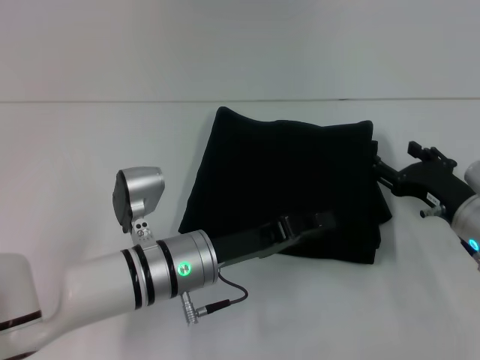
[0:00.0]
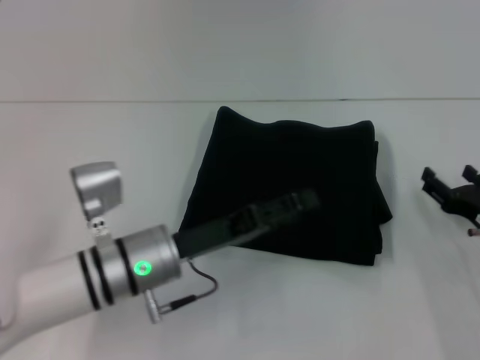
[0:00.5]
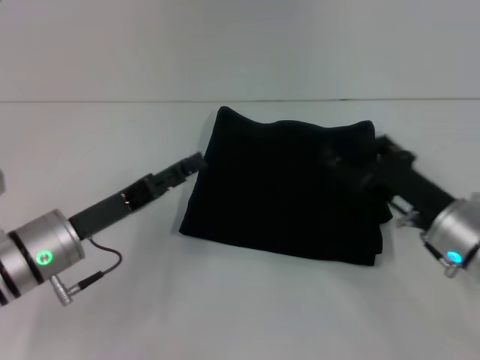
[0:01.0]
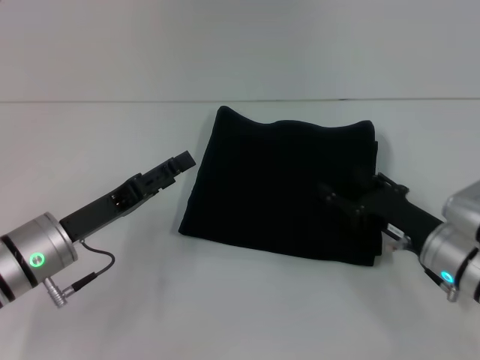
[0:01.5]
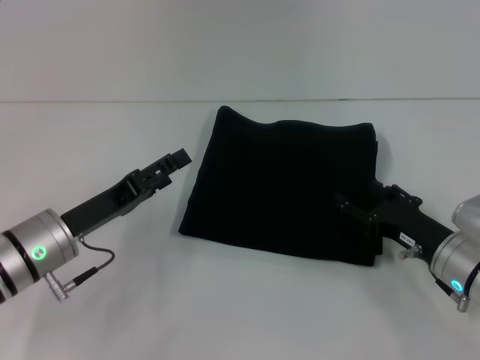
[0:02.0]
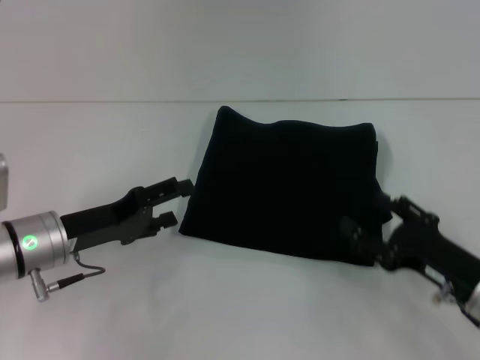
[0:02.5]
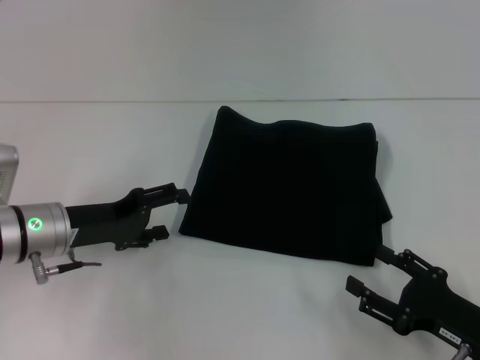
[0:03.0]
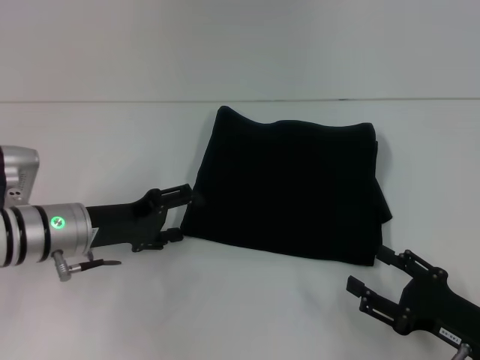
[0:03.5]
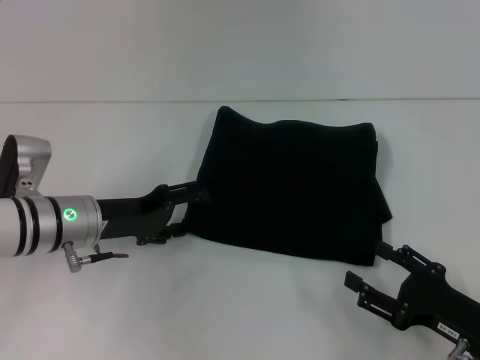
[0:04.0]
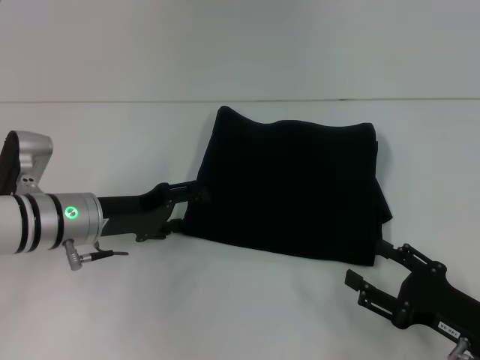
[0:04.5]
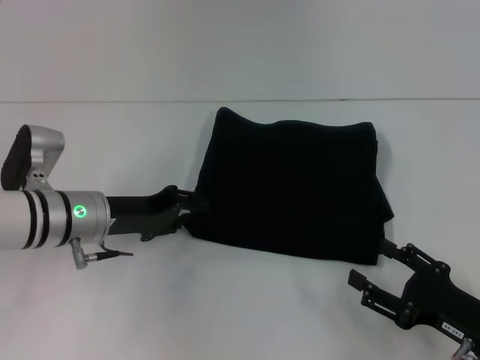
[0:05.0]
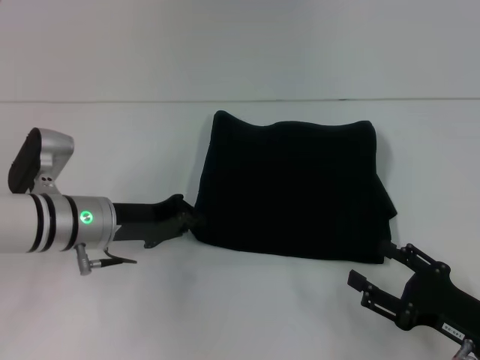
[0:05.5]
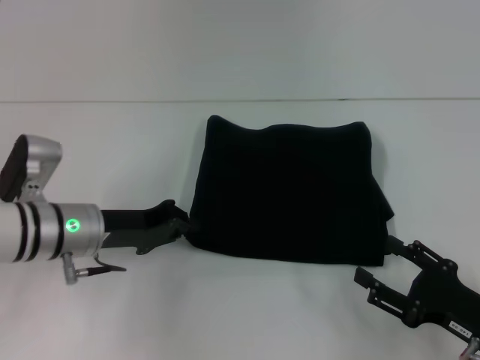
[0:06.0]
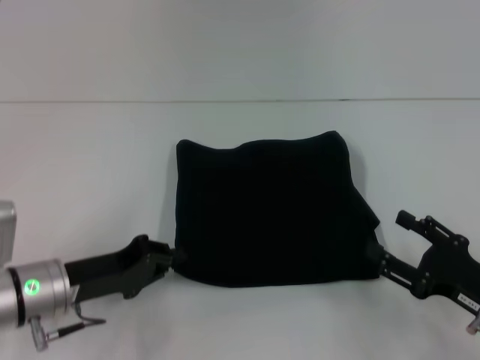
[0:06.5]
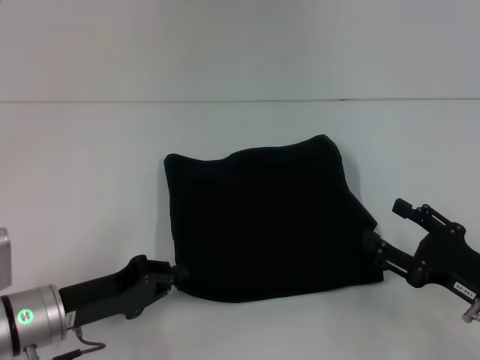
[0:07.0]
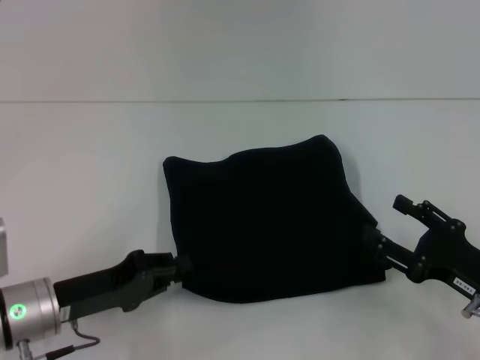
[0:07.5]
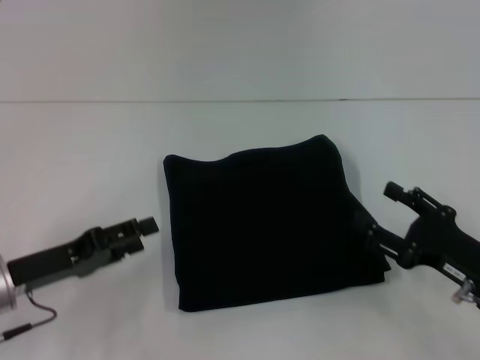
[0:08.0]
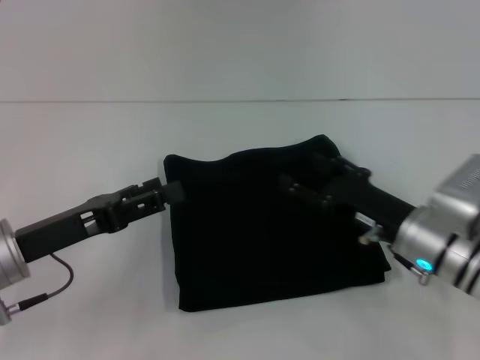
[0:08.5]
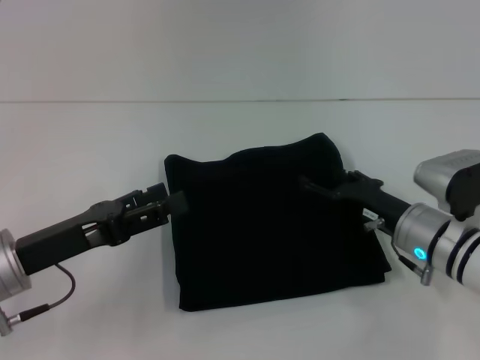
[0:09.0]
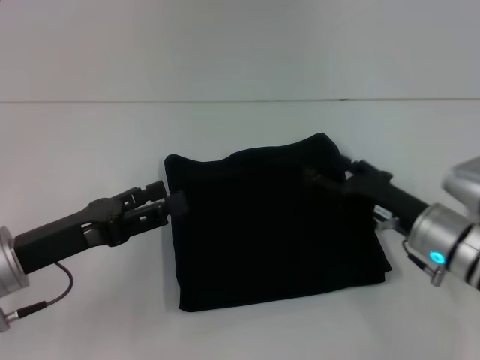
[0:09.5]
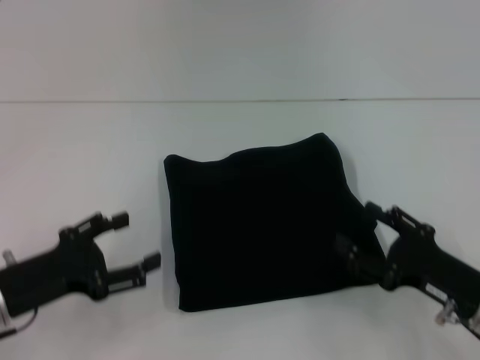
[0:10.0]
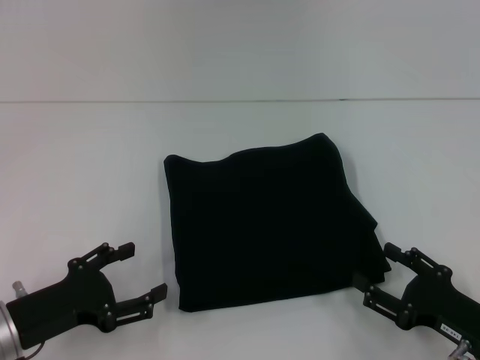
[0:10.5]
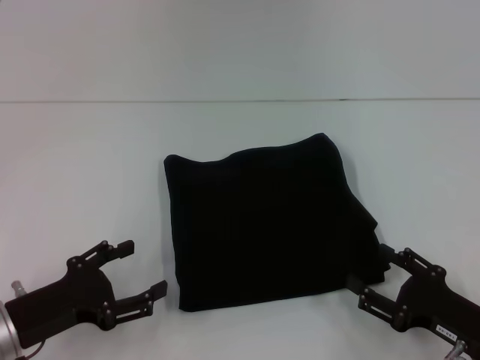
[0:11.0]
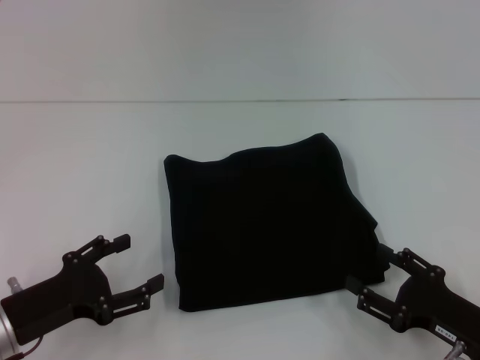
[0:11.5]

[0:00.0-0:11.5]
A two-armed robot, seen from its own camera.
0:00.0 to 0:02.0: The left gripper moves to the left, approximately 15 cm, and opens its fingers.
0:02.0 to 0:04.0: The right gripper heads backward, covering approximately 10 cm.
0:04.0 to 0:06.0: The left gripper closes its fingers.
0:06.0 to 0:07.5: The left gripper heads backward, covering approximately 10 cm.
0:07.5 to 0:09.5: The left gripper goes roughly 5 cm upward, and opens. Meanwhile the right gripper goes about 10 cm forward and to the left.
0:09.5 to 0:11.5: The right gripper moves backward and to the right, about 15 cm; the left gripper is displaced downward by approximately 5 cm.

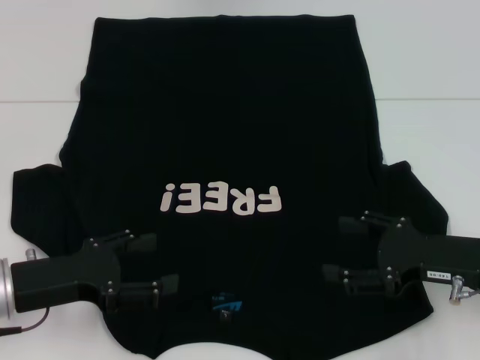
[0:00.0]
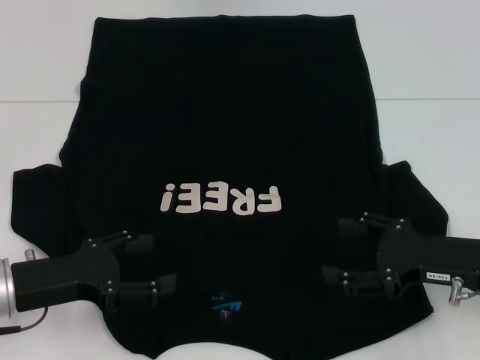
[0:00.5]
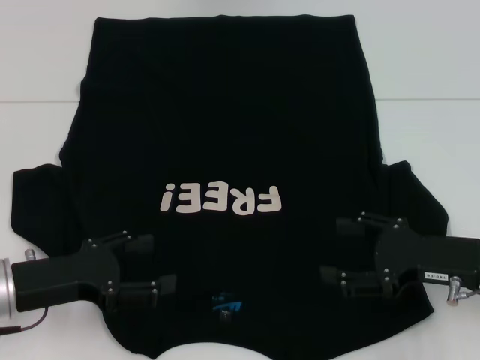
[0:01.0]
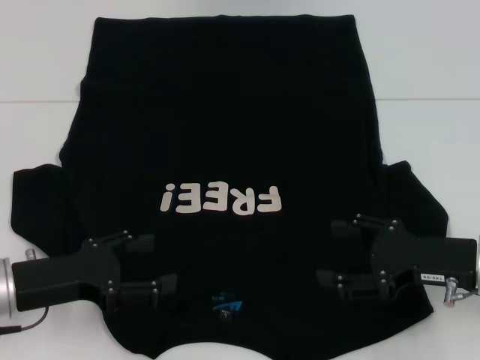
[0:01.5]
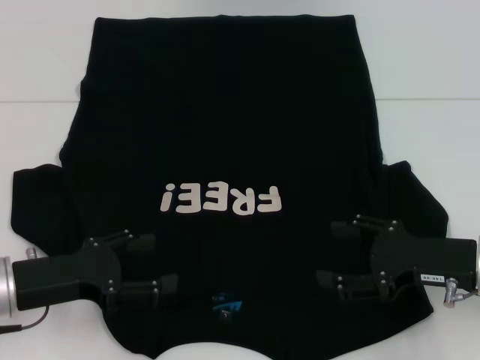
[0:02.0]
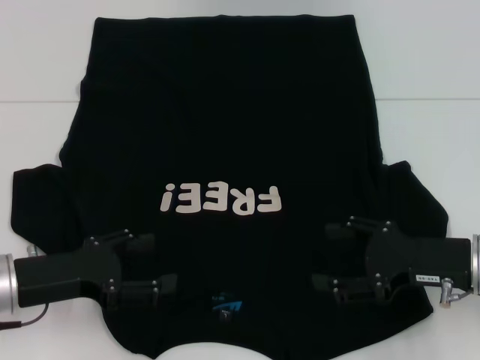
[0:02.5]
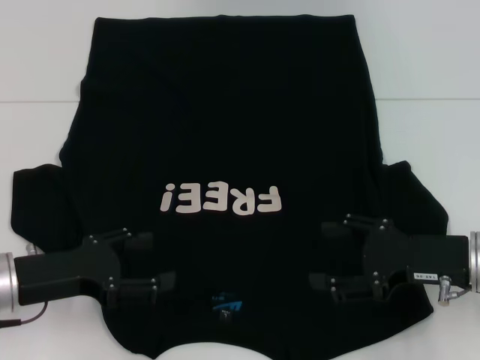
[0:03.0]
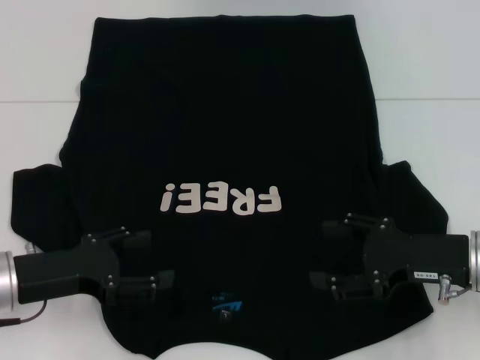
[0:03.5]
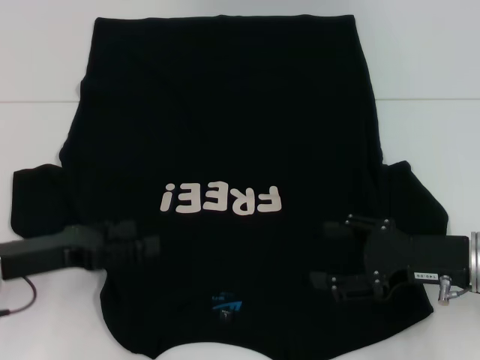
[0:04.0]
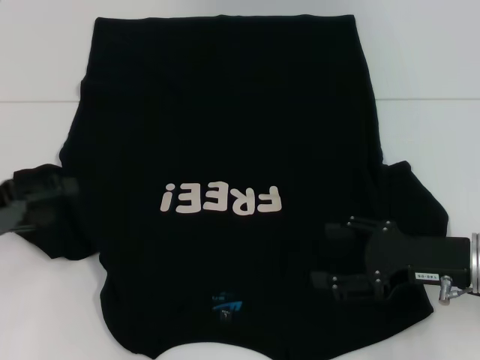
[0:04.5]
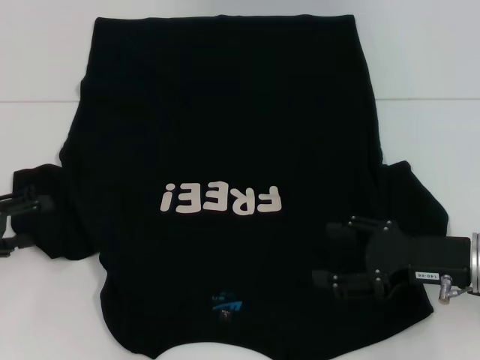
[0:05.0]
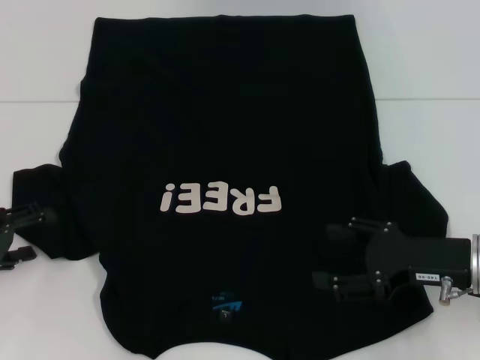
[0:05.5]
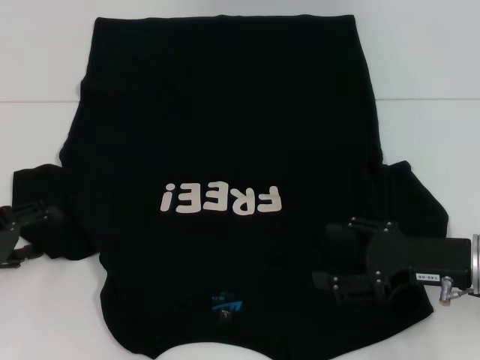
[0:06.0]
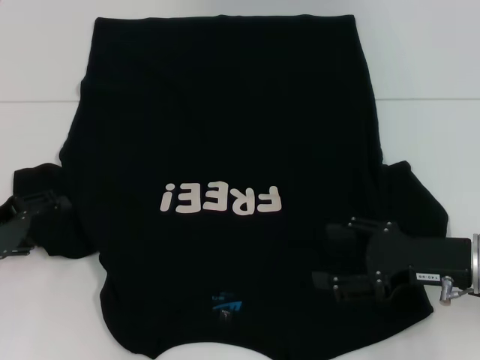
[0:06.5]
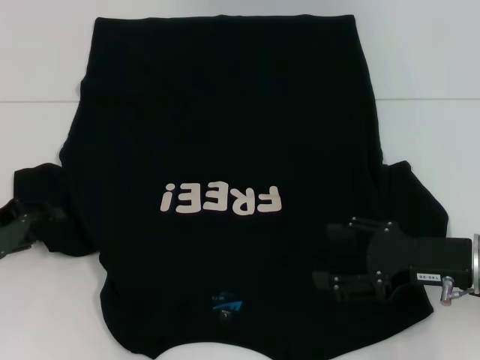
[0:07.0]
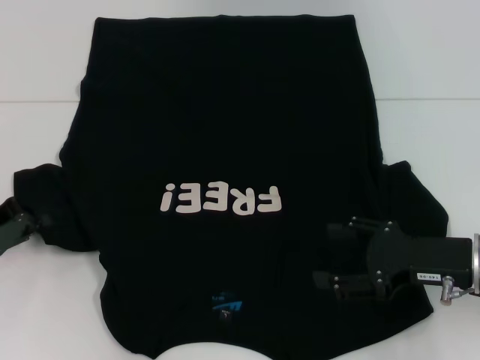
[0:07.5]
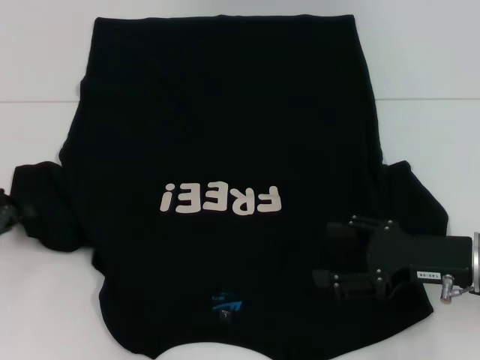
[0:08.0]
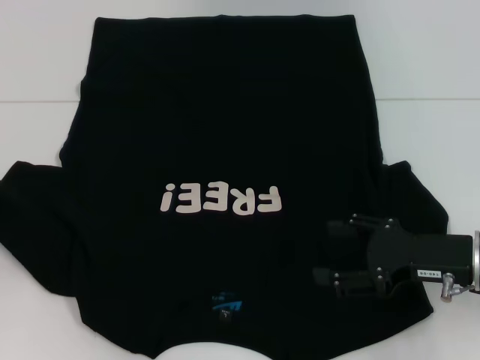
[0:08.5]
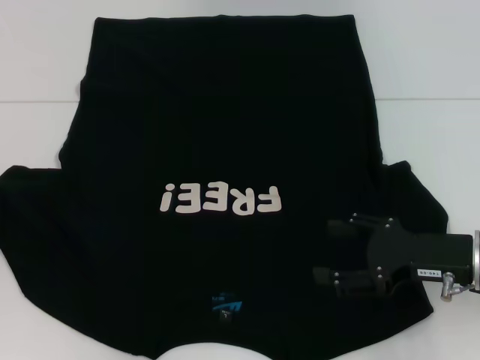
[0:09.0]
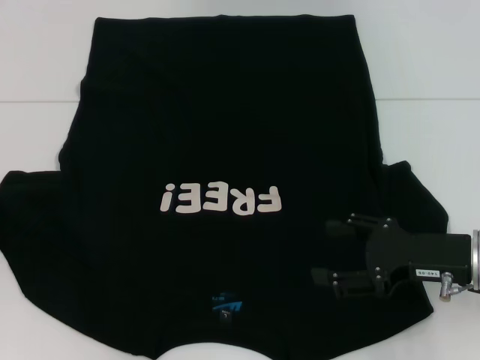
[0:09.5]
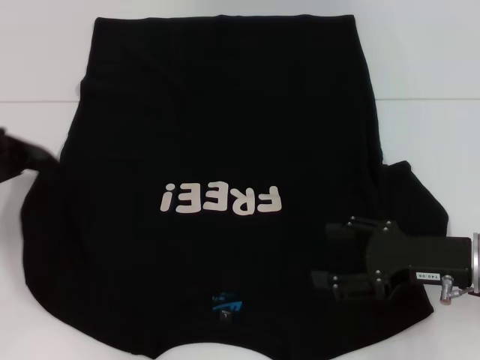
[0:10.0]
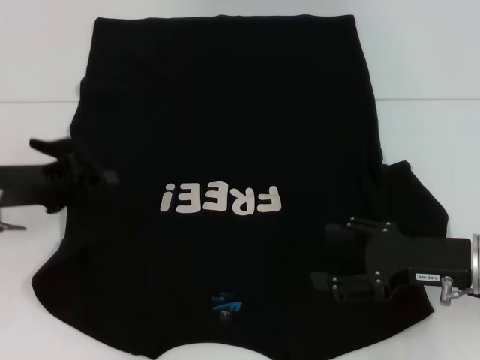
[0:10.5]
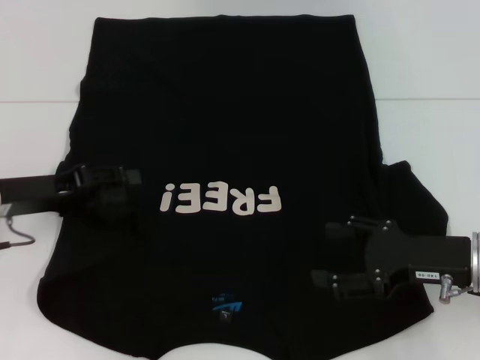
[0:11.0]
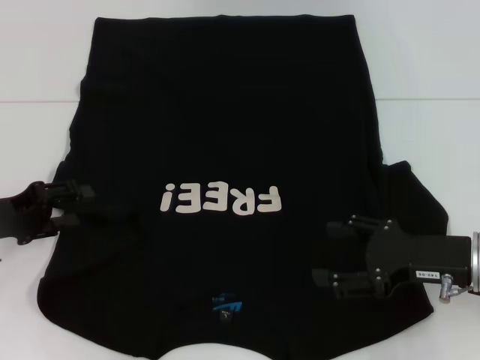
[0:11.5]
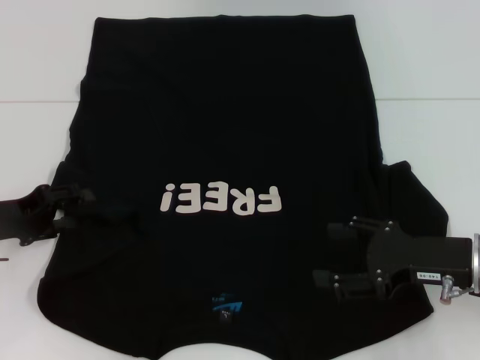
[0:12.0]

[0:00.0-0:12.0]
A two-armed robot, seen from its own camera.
0:00.0 to 0:02.0: Neither gripper changes place.
0:04.0 to 0:06.0: The left gripper is displaced to the left by roughly 10 cm.
0:06.0 to 0:08.0: The left gripper closes.
0:08.0 to 0:10.0: The left gripper goes about 5 cm upward.
0:10.0 to 0:12.0: The left gripper shifts roughly 5 cm downward, and opens up.

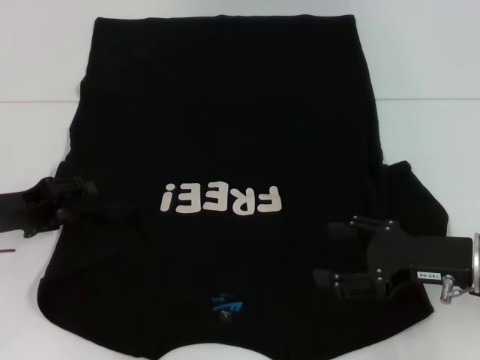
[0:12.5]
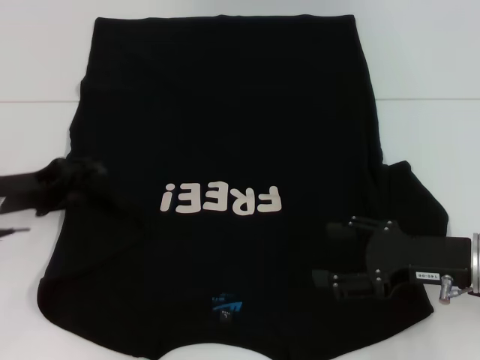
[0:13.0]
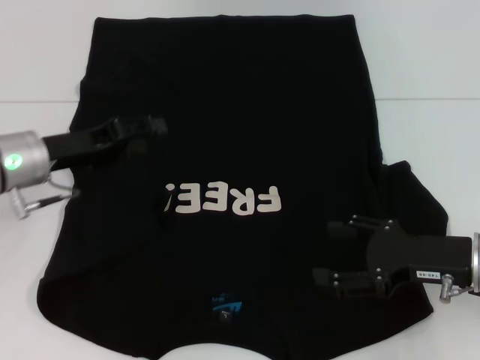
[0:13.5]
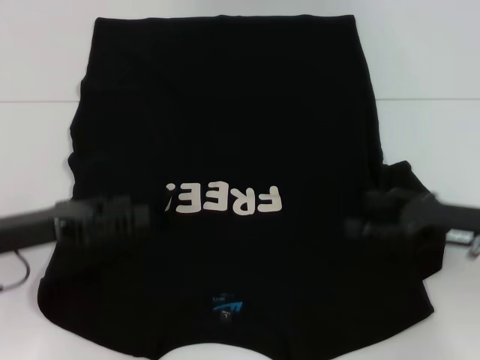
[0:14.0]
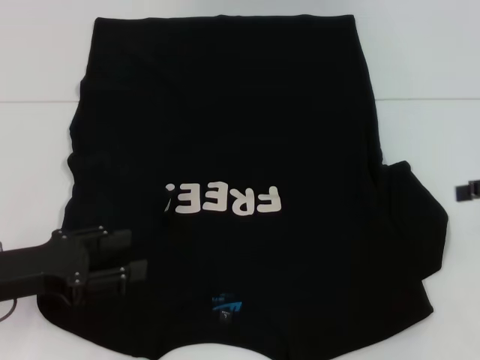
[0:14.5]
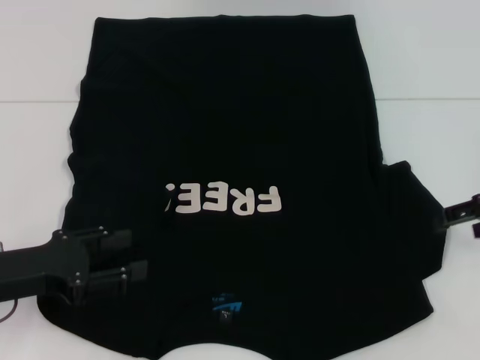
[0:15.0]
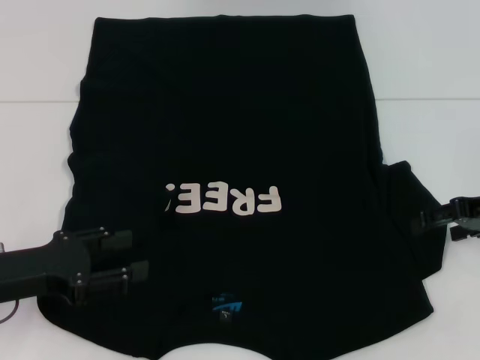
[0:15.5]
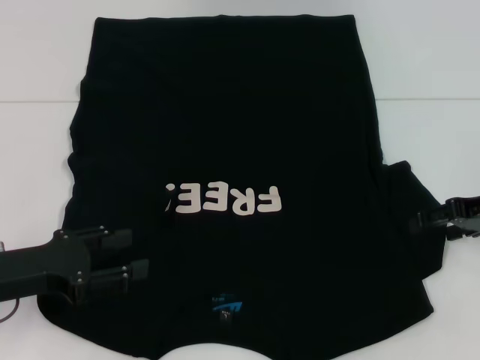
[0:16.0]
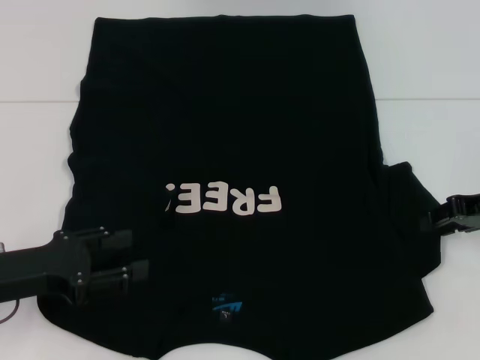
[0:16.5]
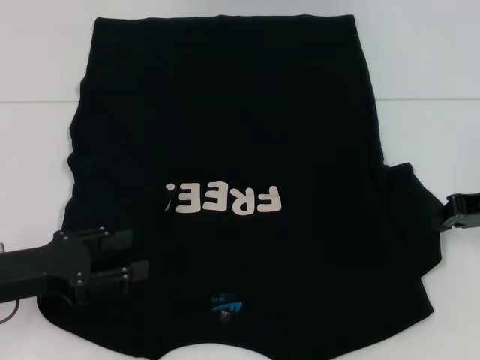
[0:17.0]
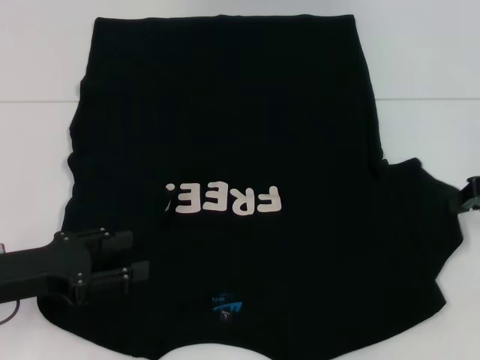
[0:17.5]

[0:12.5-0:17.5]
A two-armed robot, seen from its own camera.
0:12.5 to 0:15.0: The left gripper shifts about 5 cm backward; the right gripper goes approximately 15 cm to the right, upward and forward.
0:15.0 to 0:17.5: The right gripper closes up.
